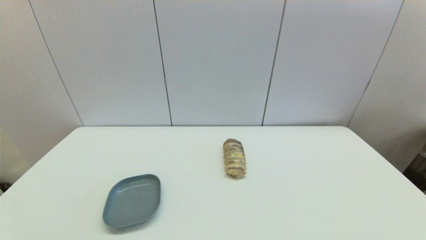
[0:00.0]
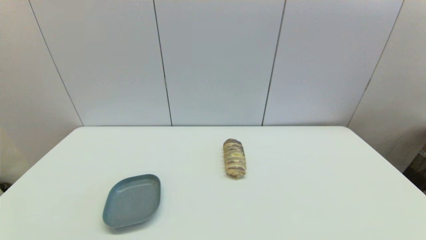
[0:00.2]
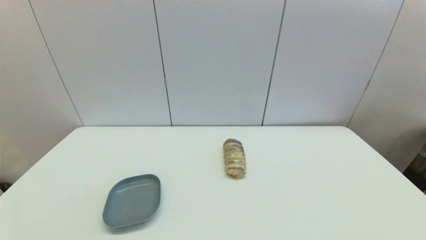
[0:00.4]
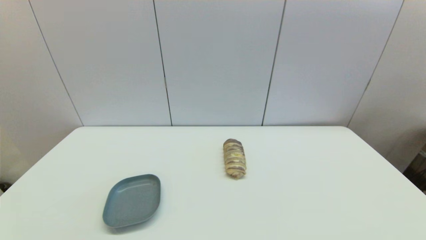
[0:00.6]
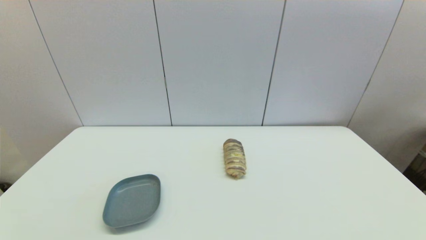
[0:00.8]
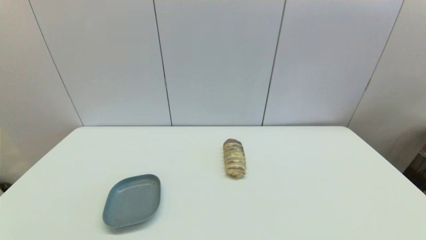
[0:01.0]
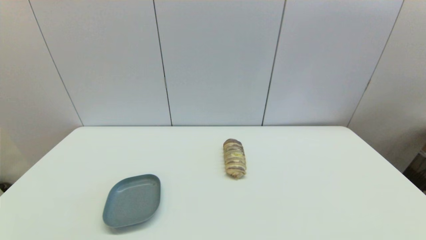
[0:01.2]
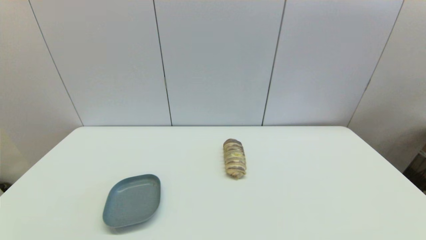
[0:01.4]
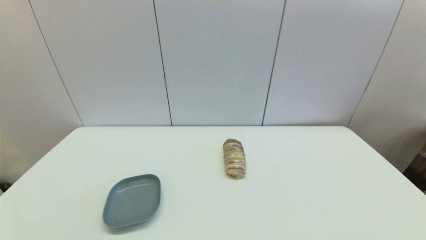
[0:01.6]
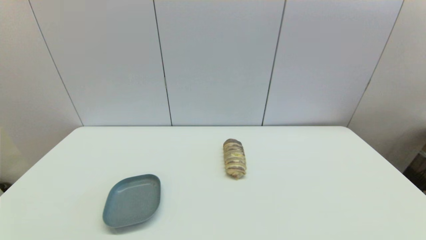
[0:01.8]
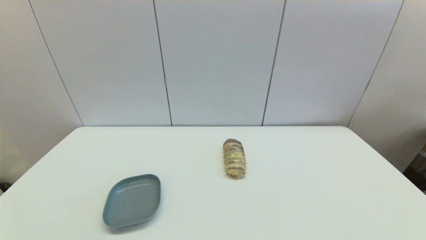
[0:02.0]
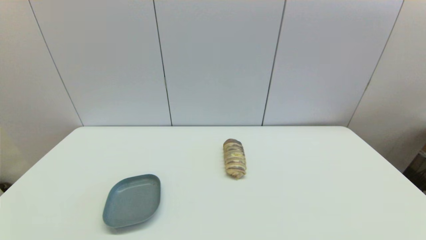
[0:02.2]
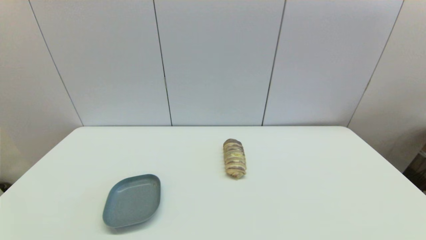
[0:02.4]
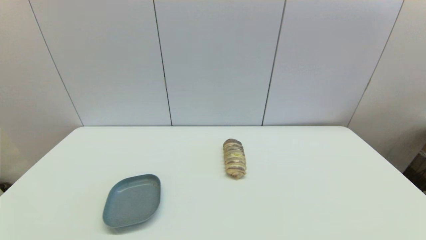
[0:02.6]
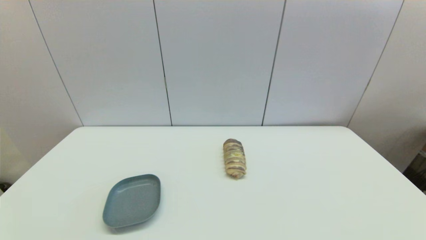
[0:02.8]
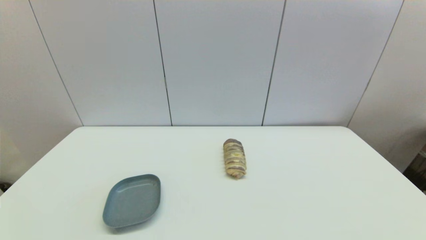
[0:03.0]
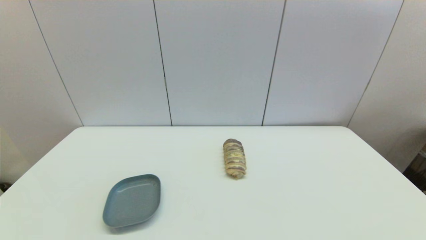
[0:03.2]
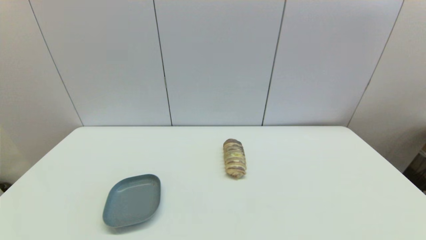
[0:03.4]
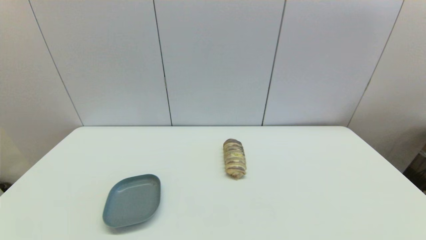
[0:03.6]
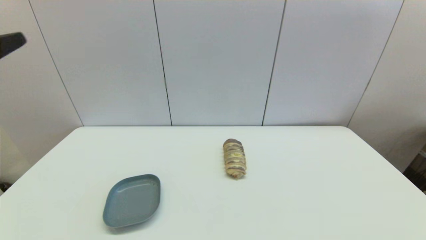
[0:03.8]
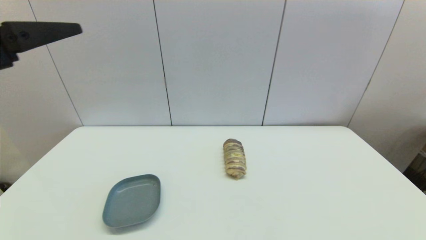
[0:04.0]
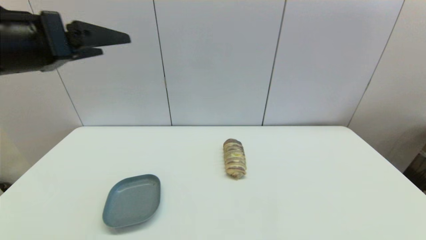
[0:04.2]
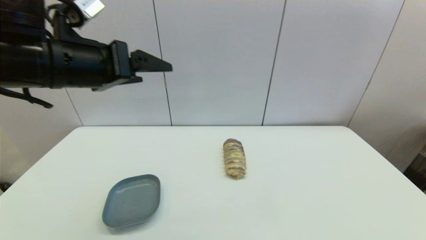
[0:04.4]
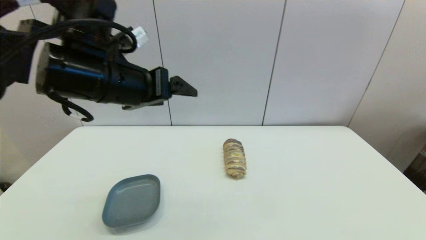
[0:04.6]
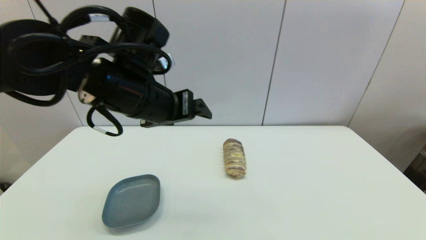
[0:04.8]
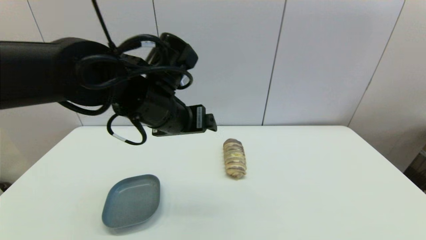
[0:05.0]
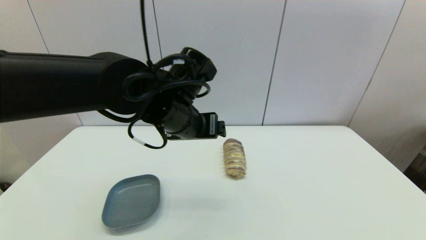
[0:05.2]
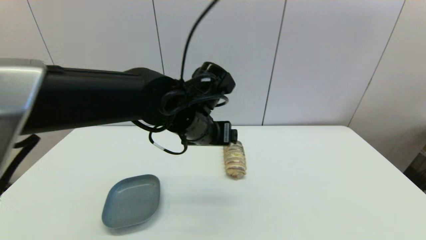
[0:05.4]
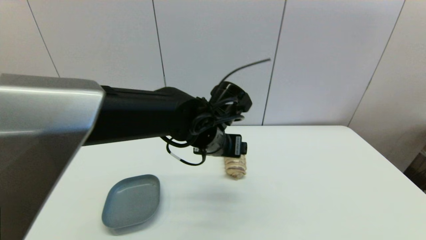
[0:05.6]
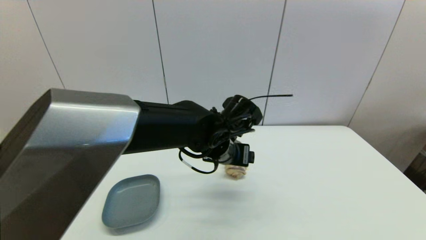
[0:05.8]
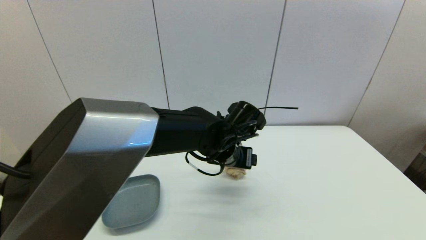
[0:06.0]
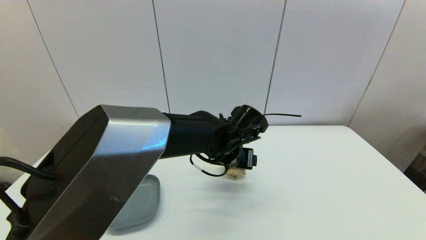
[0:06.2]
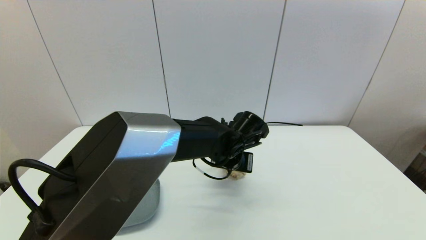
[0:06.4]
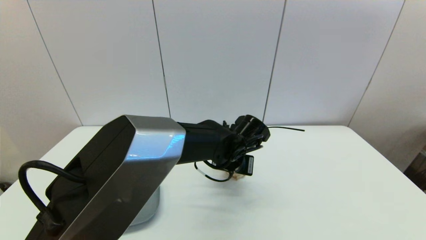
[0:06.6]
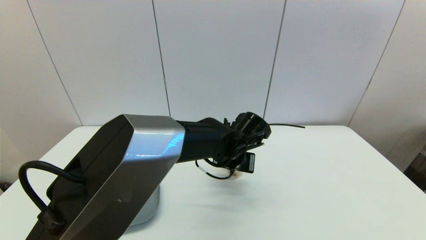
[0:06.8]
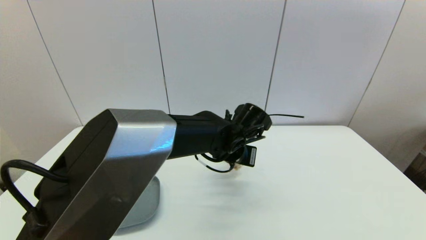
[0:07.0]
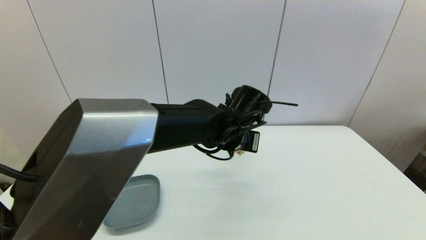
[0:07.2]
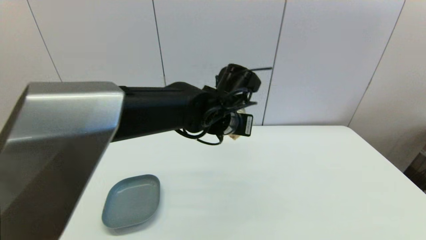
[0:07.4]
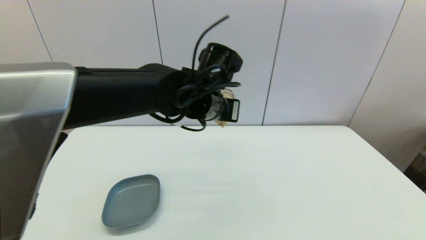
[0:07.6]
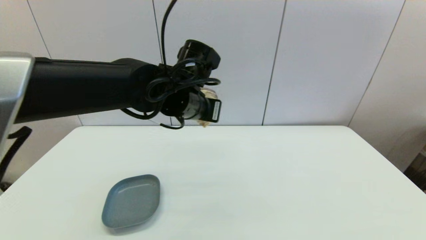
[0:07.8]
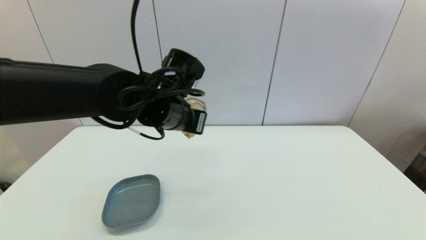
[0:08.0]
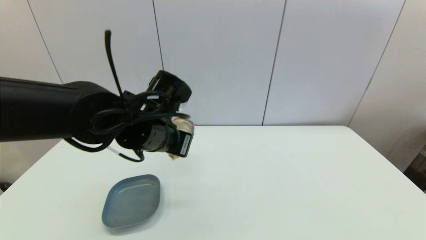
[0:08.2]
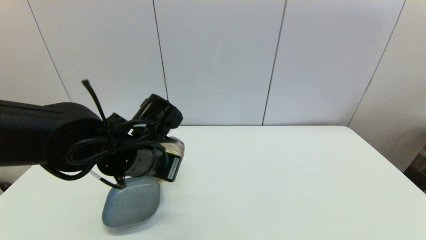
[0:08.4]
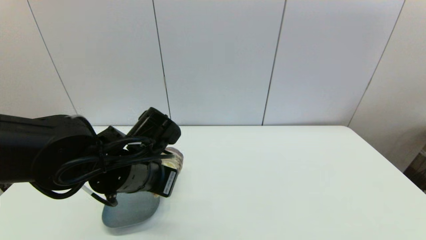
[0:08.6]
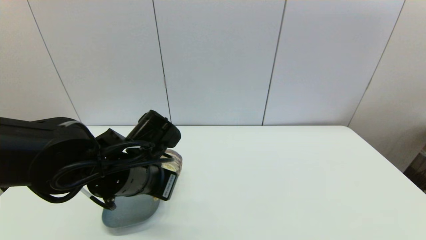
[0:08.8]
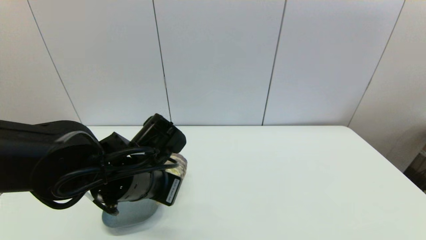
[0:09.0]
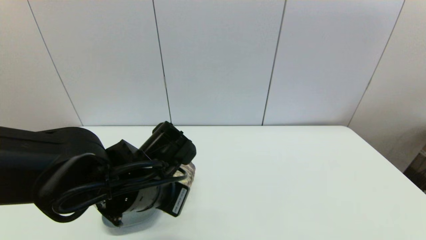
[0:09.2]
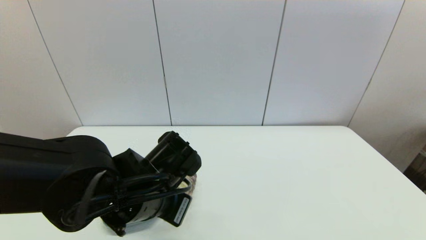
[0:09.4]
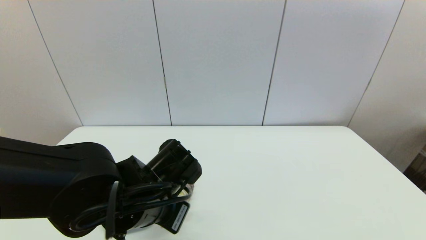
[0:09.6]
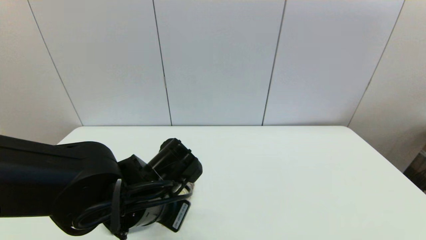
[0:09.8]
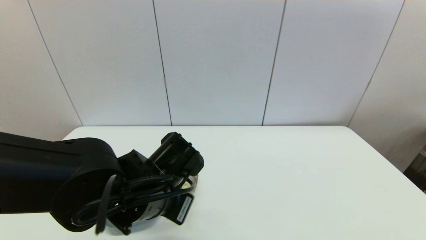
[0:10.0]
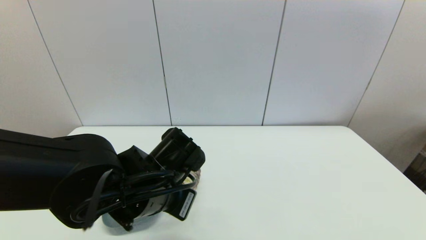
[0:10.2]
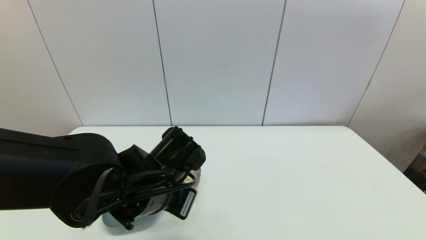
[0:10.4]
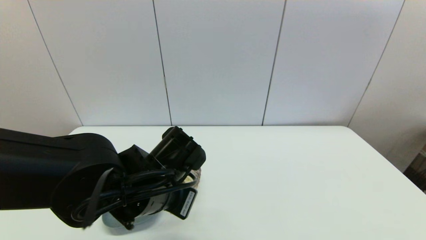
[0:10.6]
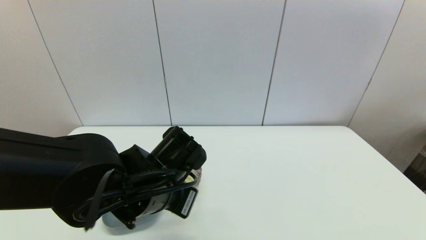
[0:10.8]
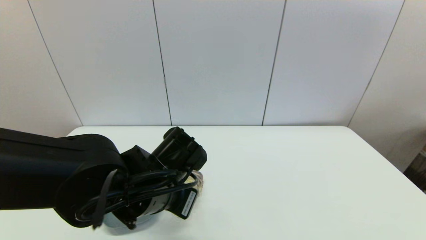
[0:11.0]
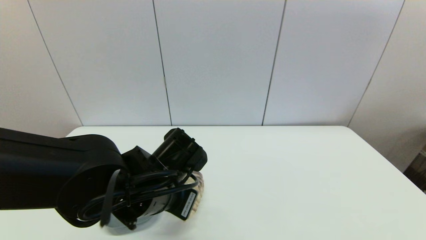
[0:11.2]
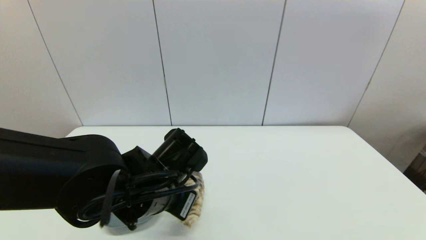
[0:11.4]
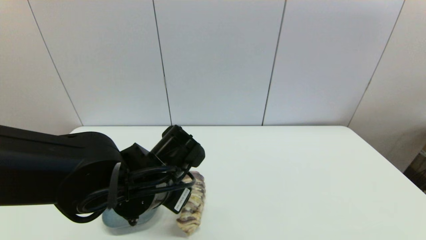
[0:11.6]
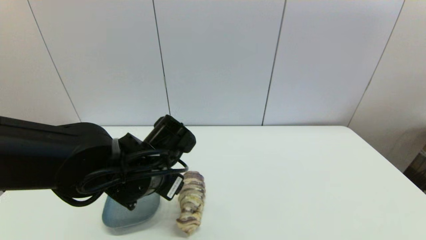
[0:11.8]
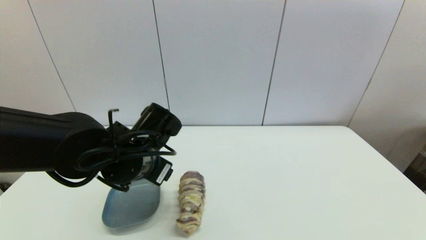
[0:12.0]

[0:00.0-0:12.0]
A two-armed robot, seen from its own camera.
Step, 0:03.8 to 0:06.6: Grasp the long bread with left gripper.
Step, 0:06.8 to 0:11.4: Place the long bread on the table with left gripper.
0:00.0 to 0:01.6: Neither gripper changes place.
0:03.0 to 0:04.4: The left gripper heads forward, upward and to the right, covering some 35 cm.
0:04.4 to 0:06.0: The left gripper travels to the right and downward by about 30 cm.
0:06.0 to 0:07.6: The left gripper goes approximately 10 cm upward, and closes up.
0:07.6 to 0:09.0: The left gripper moves backward, to the left and downward, approximately 15 cm.
0:09.0 to 0:10.4: There are only small adjustments of the grippers.
0:10.4 to 0:12.0: The left gripper shifts by some 5 cm, and opens up.

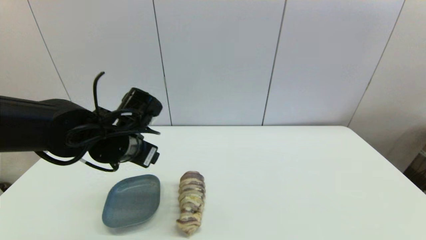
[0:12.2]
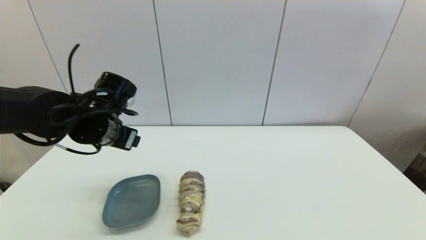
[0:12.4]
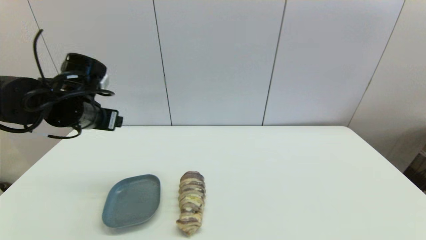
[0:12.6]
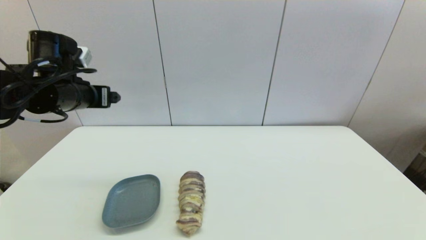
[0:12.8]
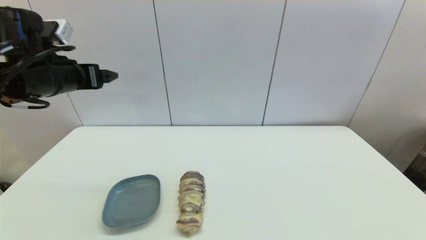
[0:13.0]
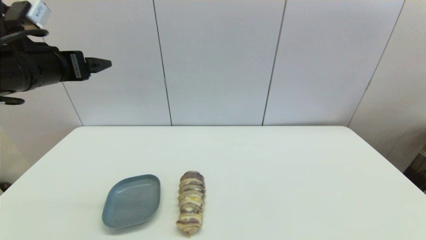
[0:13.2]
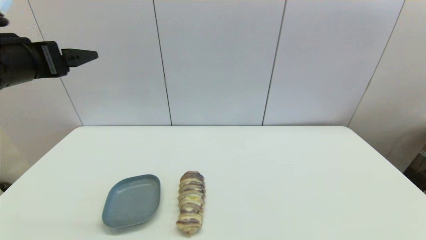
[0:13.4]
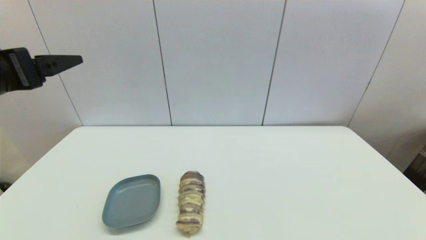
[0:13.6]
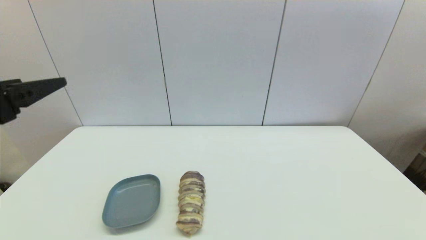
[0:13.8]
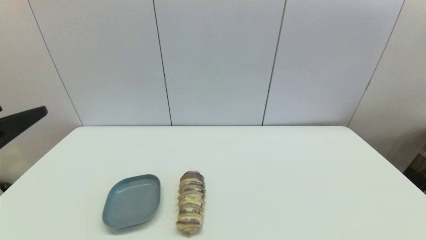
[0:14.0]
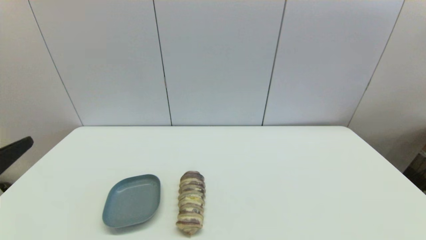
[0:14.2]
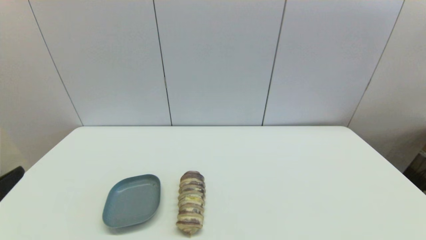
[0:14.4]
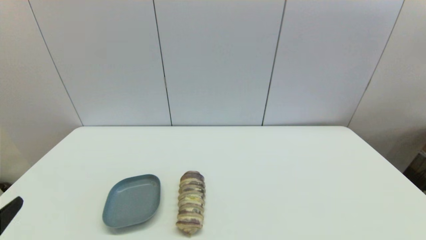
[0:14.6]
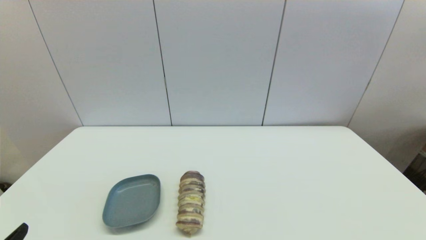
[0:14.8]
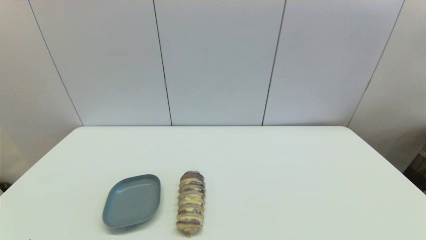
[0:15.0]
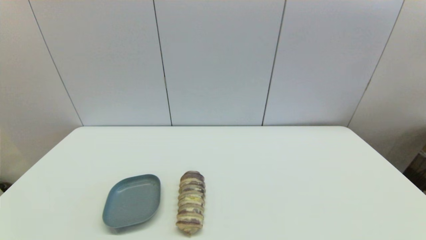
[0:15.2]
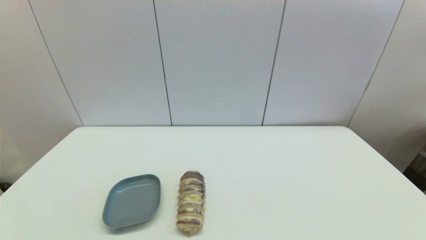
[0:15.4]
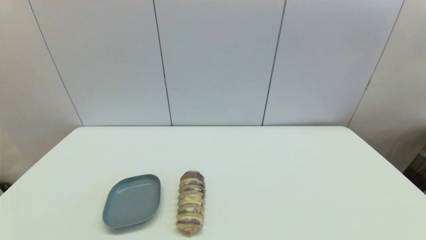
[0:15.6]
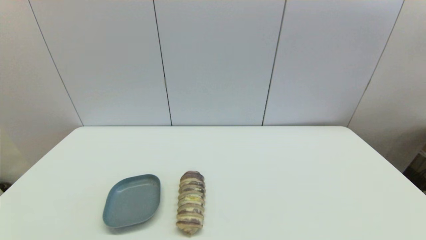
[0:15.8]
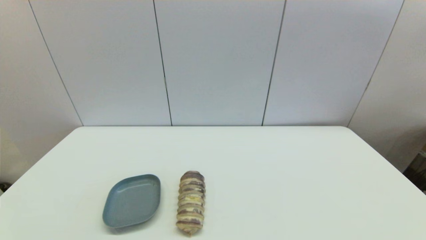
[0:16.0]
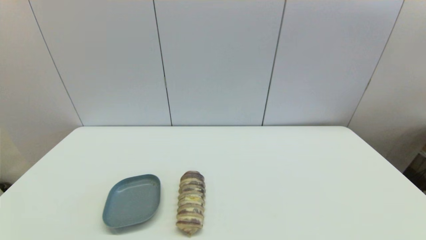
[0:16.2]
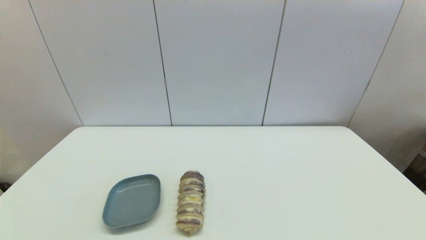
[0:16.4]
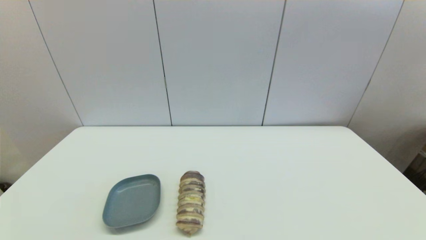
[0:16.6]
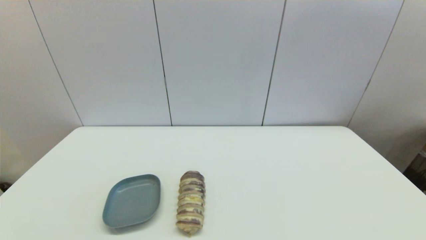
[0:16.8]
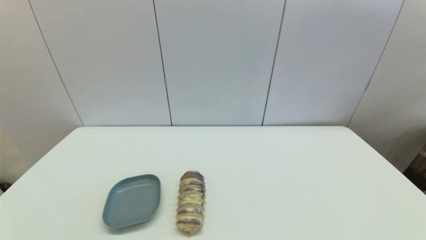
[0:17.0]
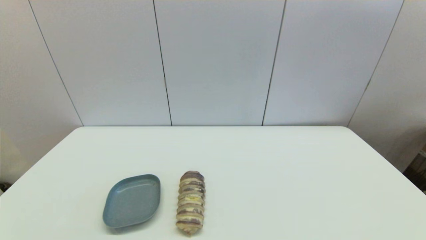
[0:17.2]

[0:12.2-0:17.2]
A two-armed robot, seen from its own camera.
0:12.2 to 0:13.8: The left gripper heads backward, to the left and upward, covering approximately 20 cm.
0:13.8 to 0:15.6: The left gripper moves downward and backward, roughly 25 cm.
